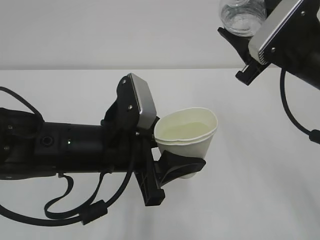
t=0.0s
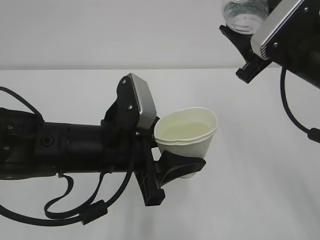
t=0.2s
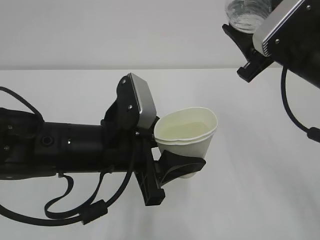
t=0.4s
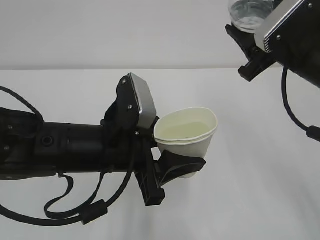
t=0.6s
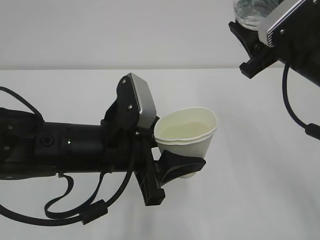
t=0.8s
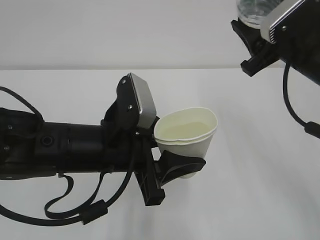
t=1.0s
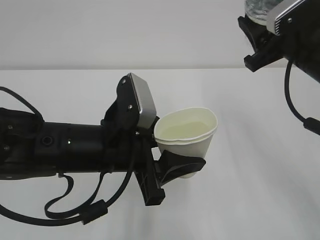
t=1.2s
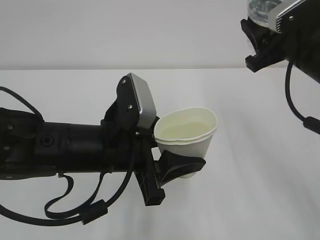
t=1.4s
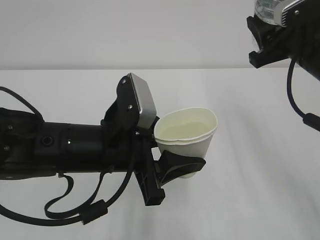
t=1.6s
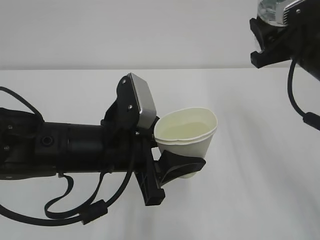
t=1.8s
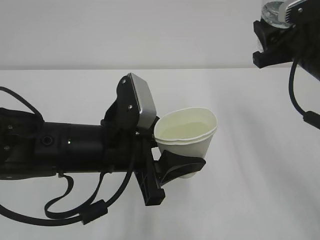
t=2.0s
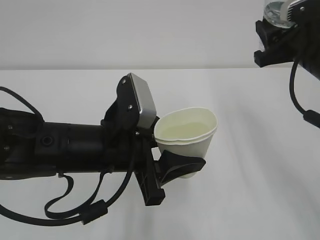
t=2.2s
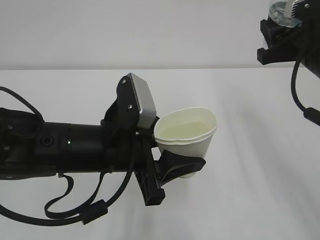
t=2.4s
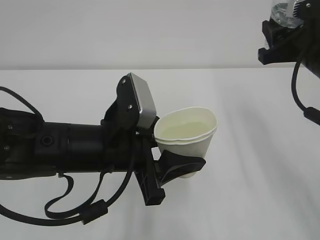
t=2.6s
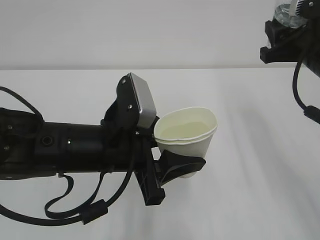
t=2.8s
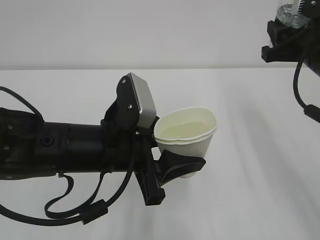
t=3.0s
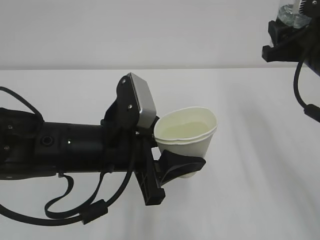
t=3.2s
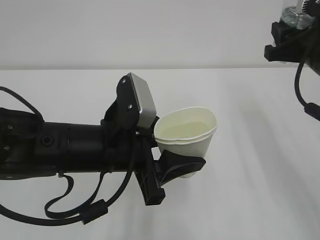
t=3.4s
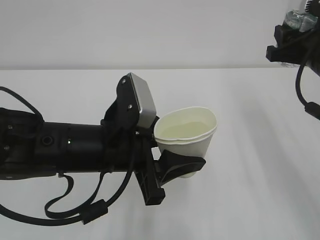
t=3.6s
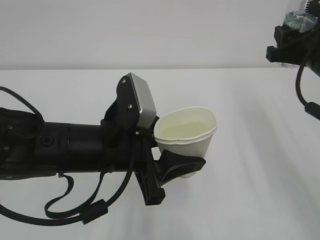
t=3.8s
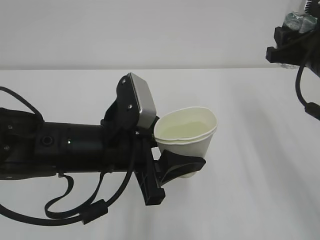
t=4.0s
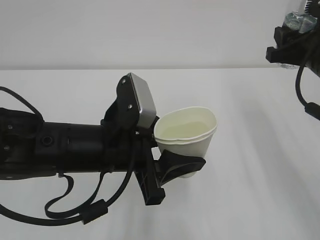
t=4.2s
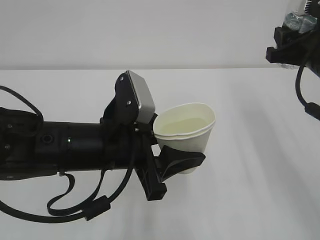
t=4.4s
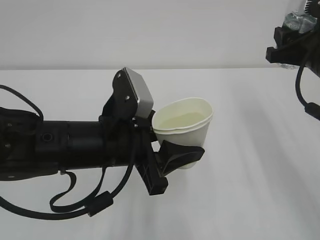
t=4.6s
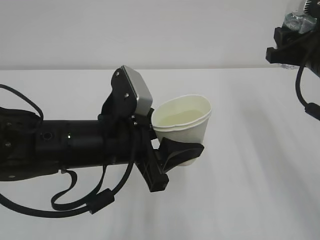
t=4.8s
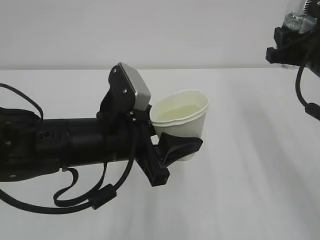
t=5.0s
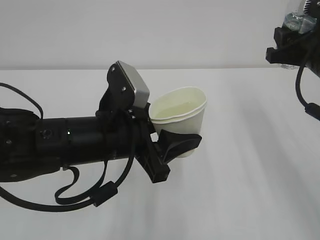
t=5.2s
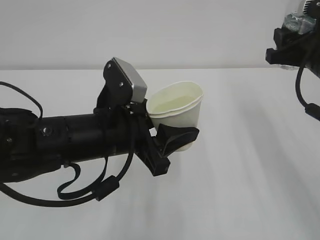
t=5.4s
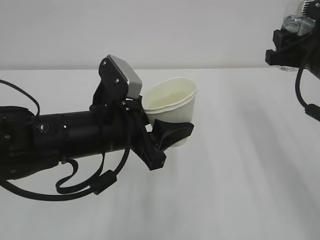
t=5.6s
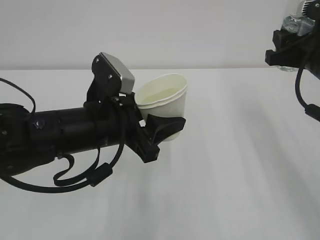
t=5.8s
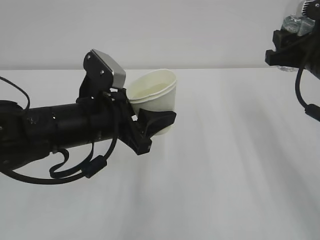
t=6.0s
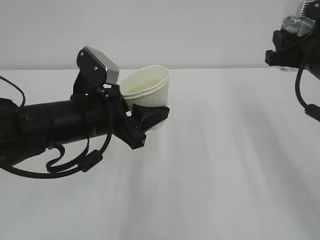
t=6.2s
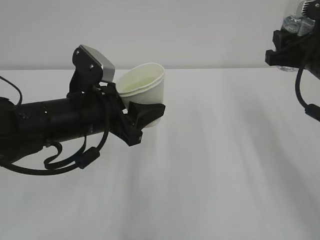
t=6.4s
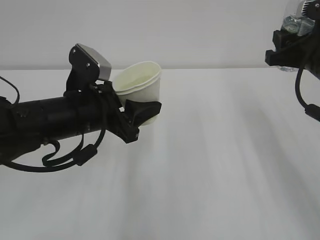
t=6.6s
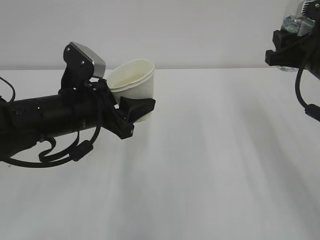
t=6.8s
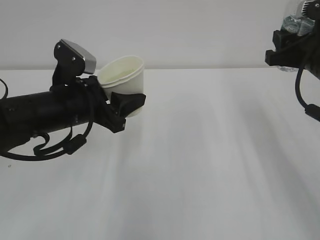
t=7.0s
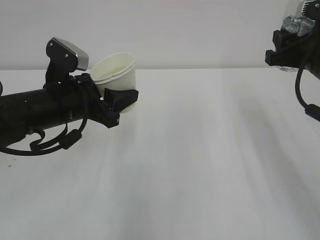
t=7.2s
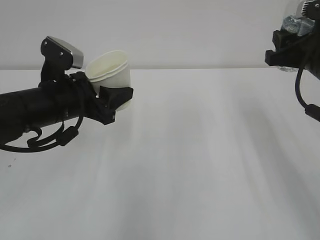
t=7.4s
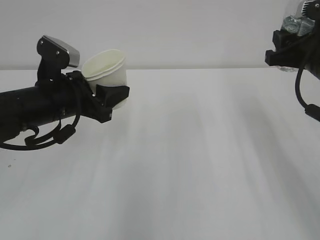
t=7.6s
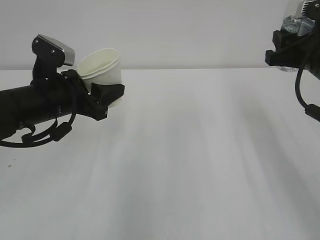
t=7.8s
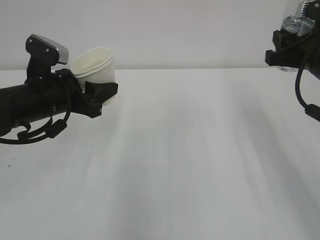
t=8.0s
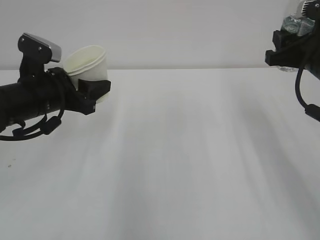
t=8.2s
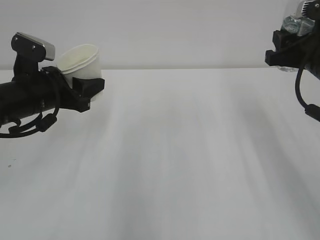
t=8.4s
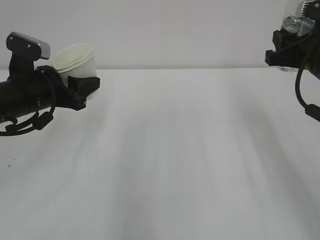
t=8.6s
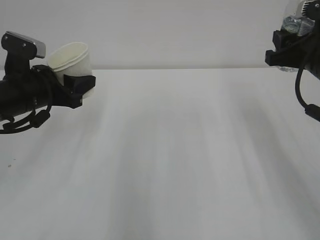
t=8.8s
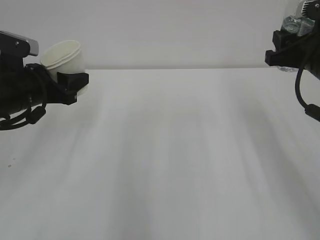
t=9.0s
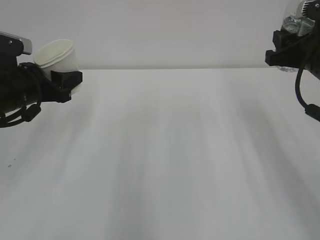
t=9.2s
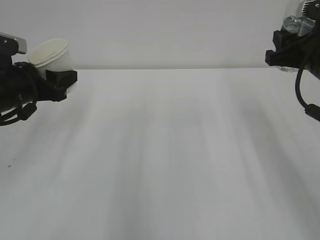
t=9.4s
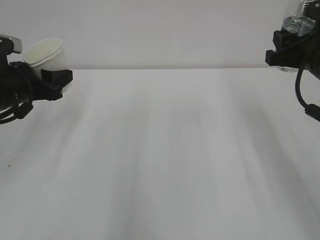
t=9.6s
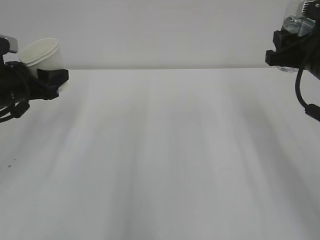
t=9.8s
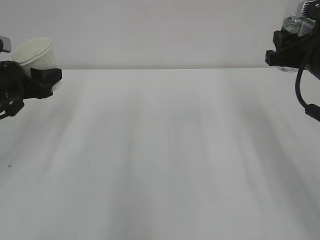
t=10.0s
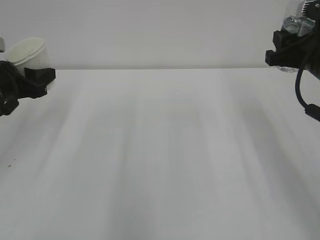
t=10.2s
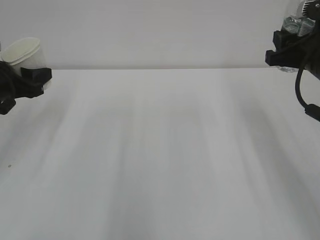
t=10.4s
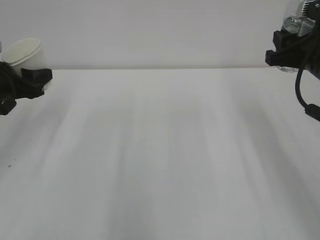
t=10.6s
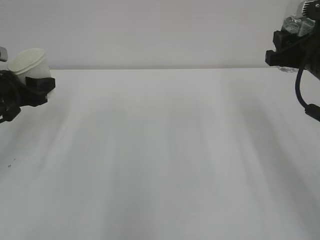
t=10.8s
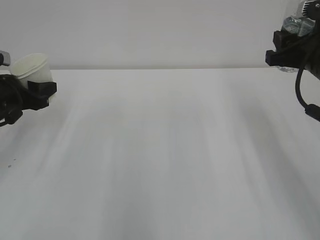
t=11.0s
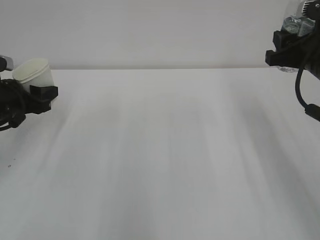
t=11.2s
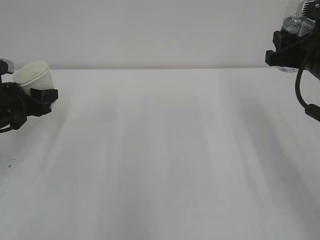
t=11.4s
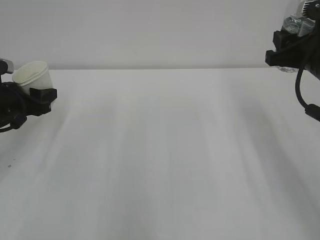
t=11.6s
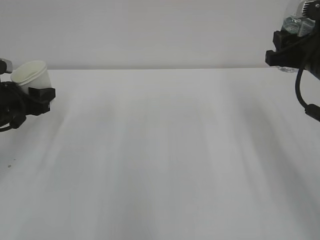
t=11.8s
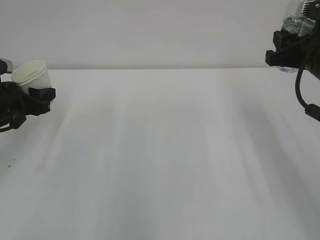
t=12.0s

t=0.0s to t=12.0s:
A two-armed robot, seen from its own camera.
t=1.6s to t=3.0s: The grippers stay close to where they were, moving slightly.
t=3.0s to t=6.0s: The grippers make only small movements.
t=6.0s to t=7.6s: The left gripper goes approximately 5 cm to the left.
t=7.6s to t=9.0s: The left gripper shifts some 5 cm to the left.
t=9.0s to t=10.4s: The left gripper heads to the left, covering some 5 cm.
t=10.4s to t=12.0s: The grippers move only a little.

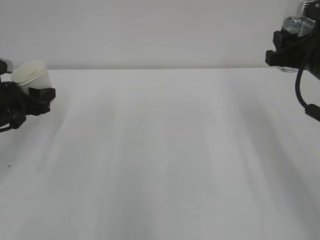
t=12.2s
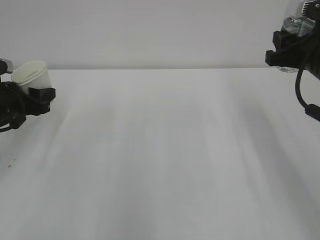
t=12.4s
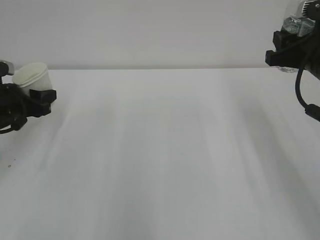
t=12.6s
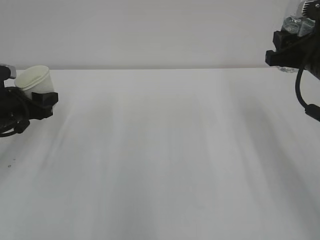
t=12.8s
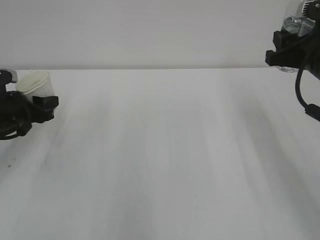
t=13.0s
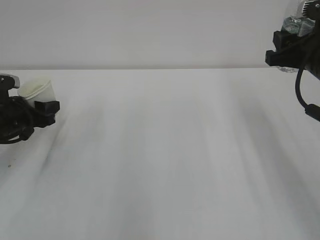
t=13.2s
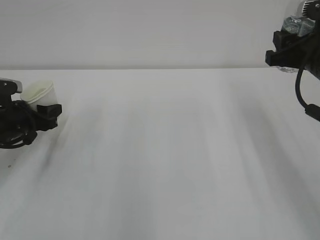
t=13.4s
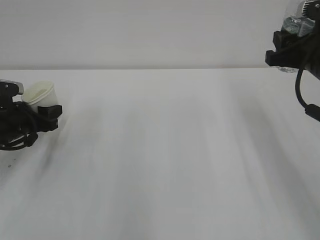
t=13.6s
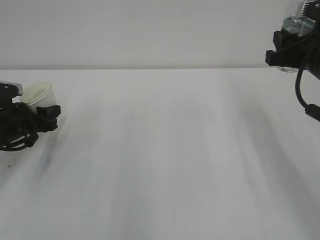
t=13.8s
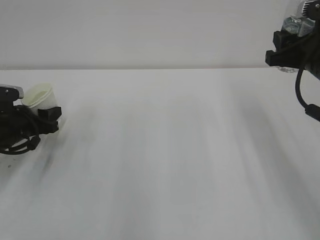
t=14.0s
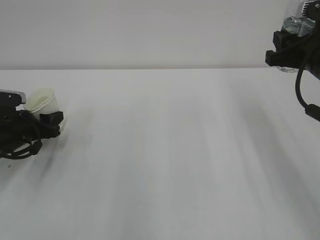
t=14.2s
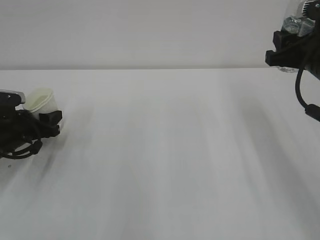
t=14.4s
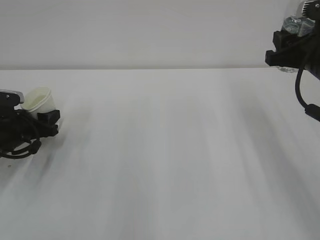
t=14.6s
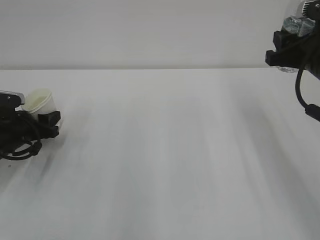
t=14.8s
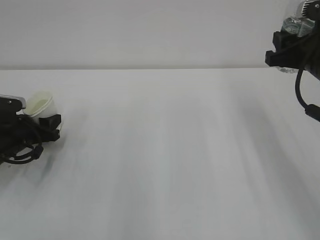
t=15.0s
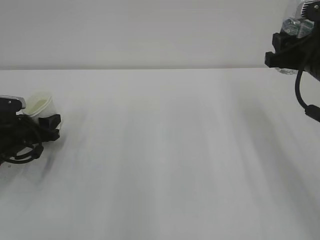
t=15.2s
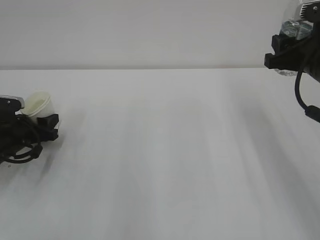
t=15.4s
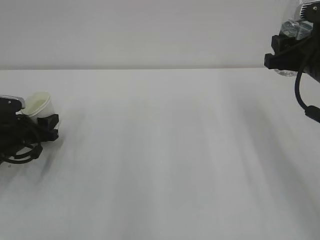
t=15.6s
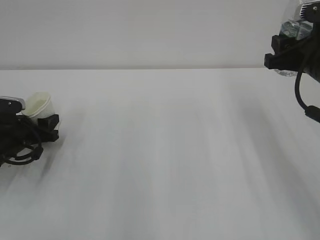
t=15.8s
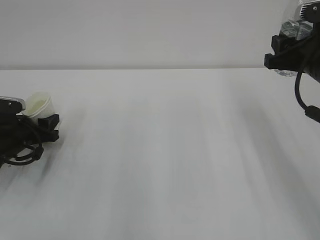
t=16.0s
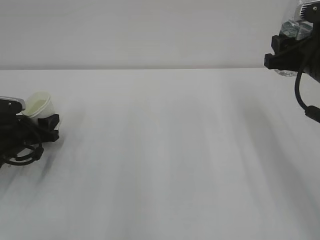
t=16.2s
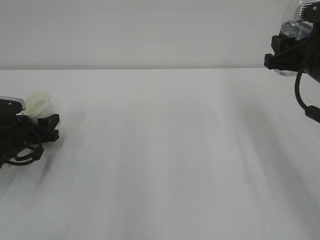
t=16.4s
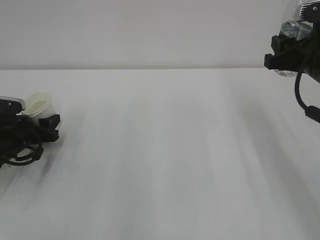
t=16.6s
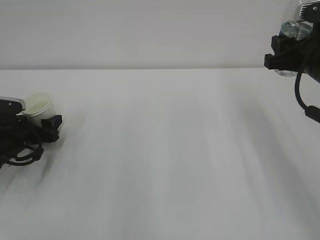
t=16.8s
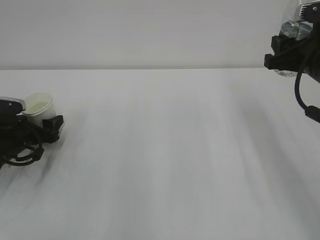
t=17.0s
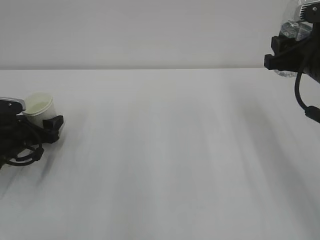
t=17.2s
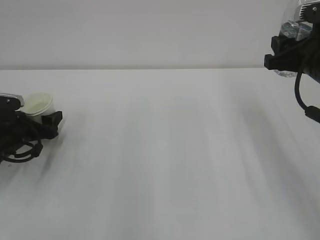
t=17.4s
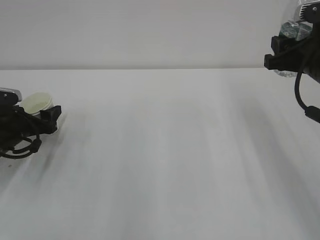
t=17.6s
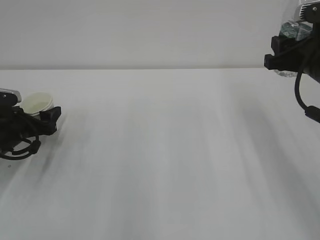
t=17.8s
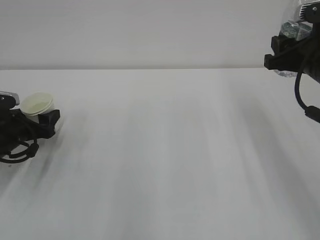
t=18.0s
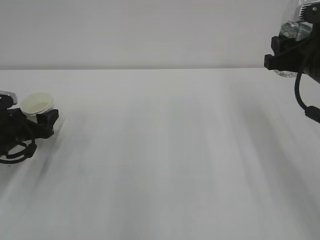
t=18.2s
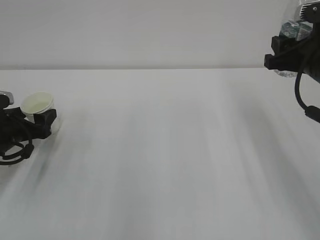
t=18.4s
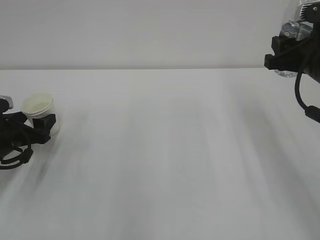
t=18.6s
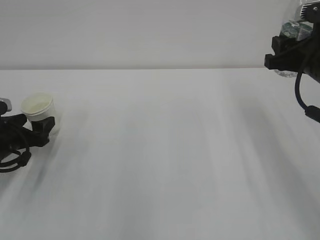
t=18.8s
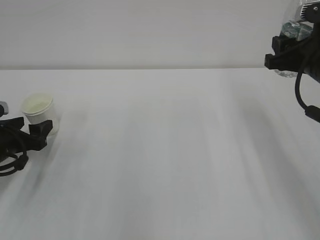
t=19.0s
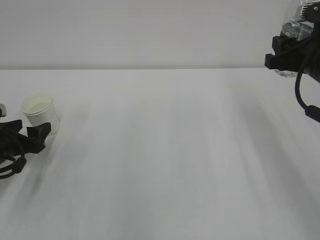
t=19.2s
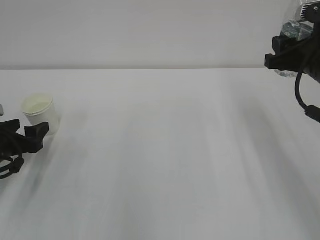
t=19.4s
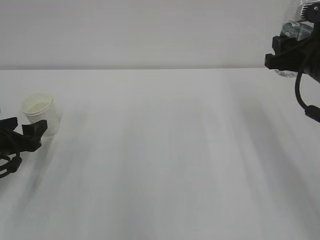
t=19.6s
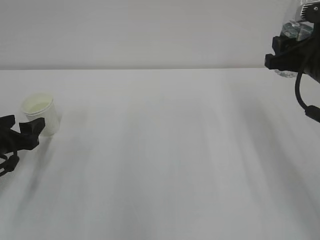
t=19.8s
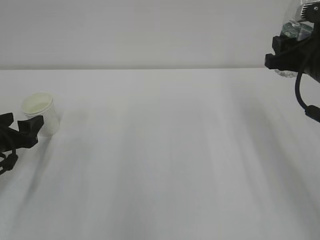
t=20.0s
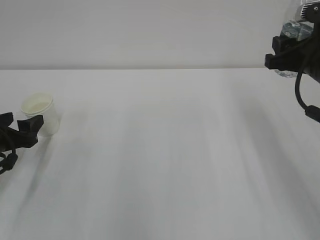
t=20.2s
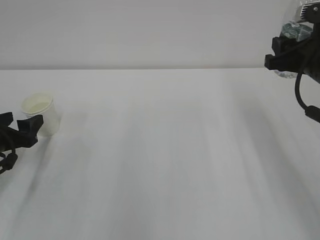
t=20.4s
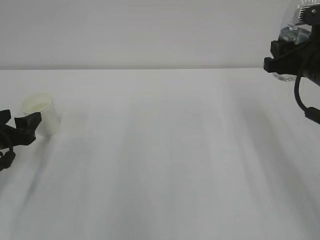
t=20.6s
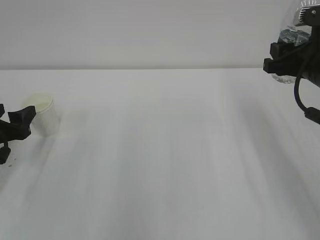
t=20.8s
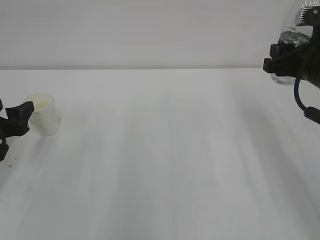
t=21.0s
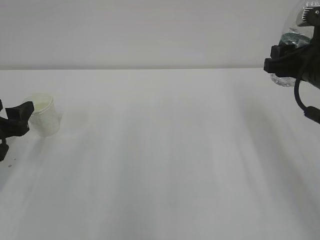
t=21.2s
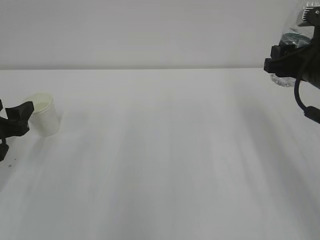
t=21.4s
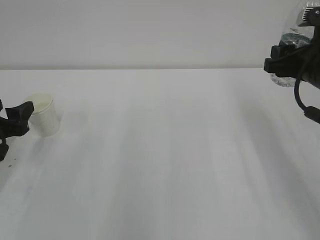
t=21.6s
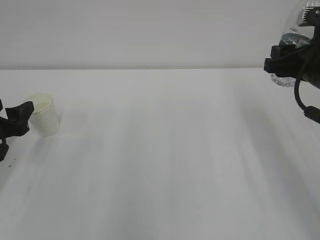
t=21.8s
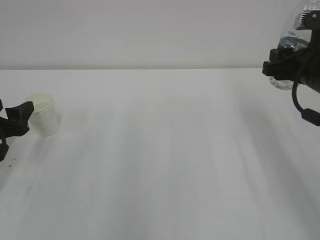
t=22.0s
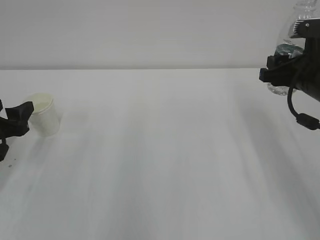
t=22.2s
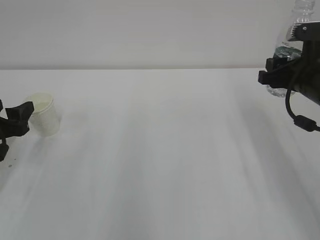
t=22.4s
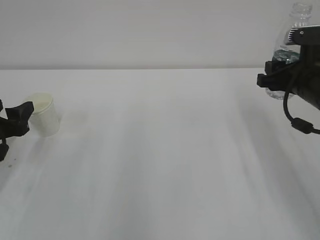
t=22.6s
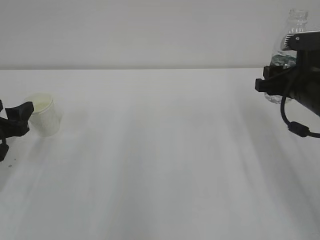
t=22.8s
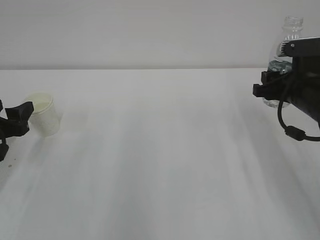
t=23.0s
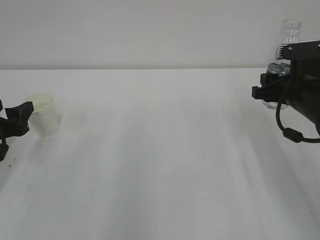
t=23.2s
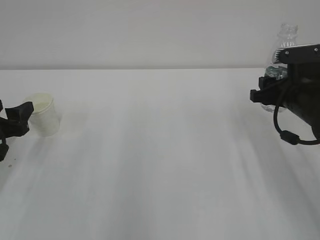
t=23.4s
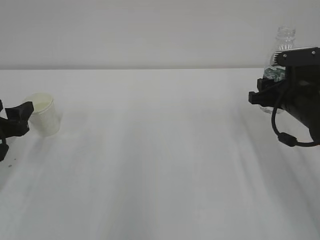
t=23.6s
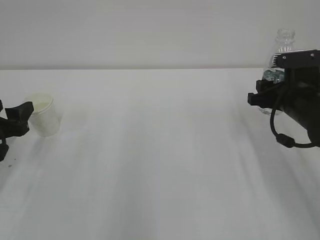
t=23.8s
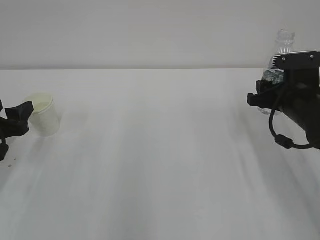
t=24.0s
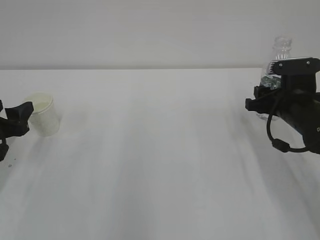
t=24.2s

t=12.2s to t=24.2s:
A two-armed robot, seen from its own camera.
t=12.2s to t=13.8s: The left gripper heads downward, covering some 5 cm.
t=13.8s to t=15.2s: The grippers stay close to where they were, moving slightly.
t=15.2s to t=16.6s: The two grippers keep their place.
t=16.6s to t=18.2s: The left gripper opens its fingers.
t=18.2s to t=19.8s: The left gripper moves backward, some 5 cm.
t=19.8s to t=22.6s: The grippers make only small movements.
t=22.6s to t=24.2s: The right gripper moves downward, roughly 5 cm.
